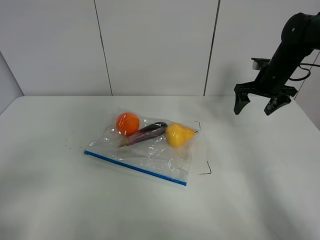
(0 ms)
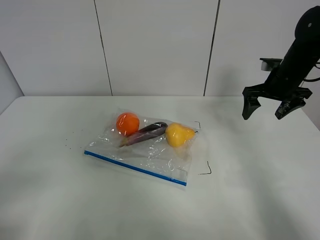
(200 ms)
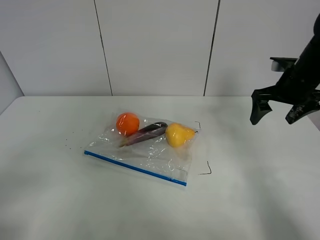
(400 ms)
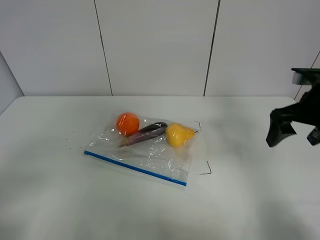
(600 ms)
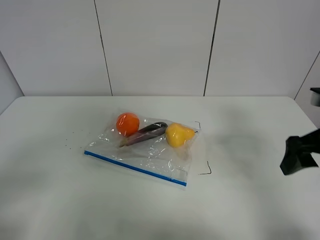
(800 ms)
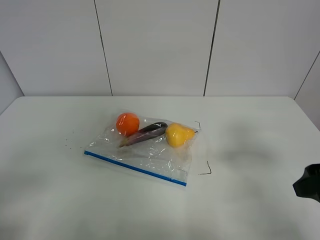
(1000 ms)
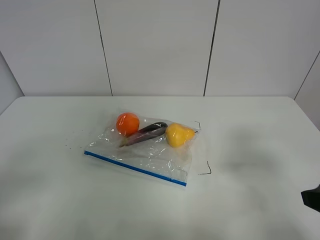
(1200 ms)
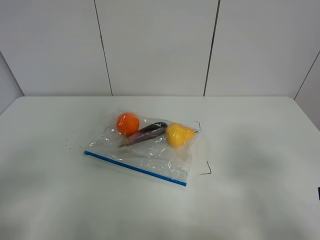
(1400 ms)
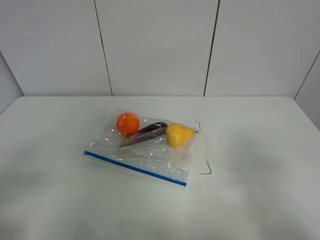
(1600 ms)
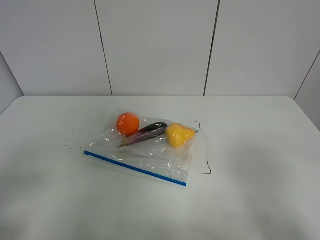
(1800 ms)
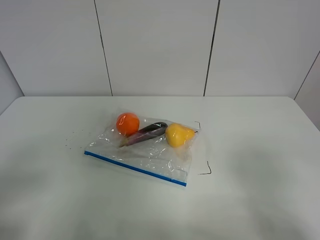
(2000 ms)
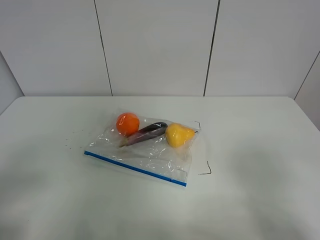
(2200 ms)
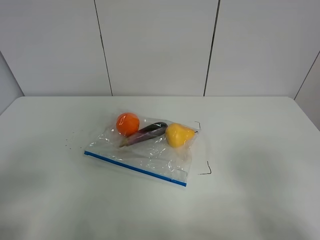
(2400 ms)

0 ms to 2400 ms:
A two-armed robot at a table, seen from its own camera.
0 ms to 1200 ms: The right gripper shifts some 35 cm backward.

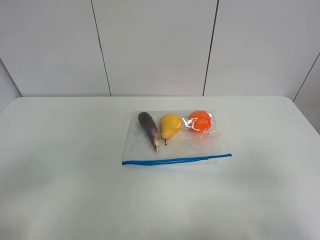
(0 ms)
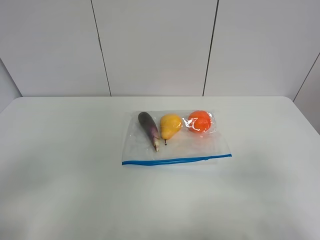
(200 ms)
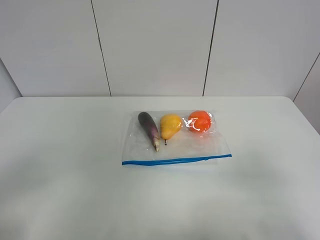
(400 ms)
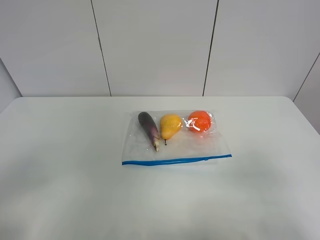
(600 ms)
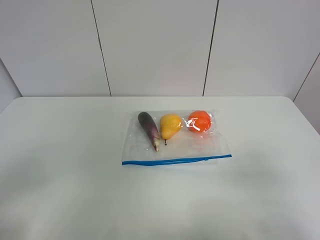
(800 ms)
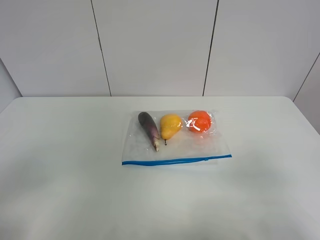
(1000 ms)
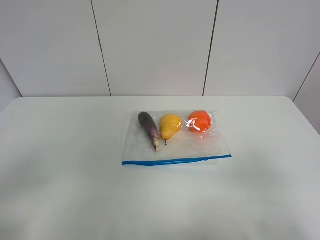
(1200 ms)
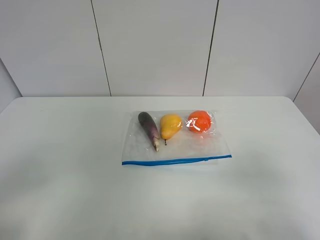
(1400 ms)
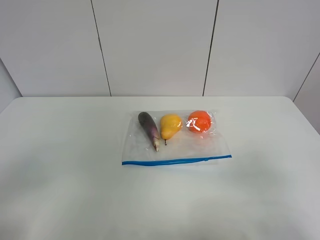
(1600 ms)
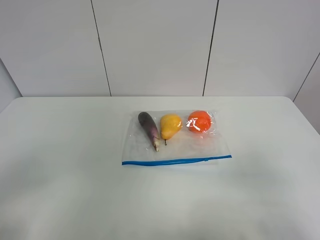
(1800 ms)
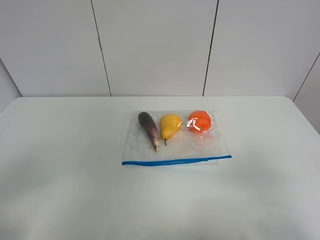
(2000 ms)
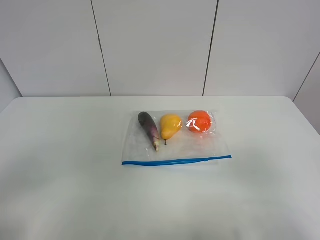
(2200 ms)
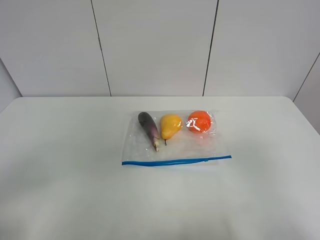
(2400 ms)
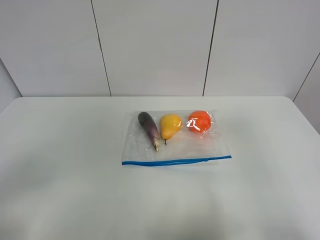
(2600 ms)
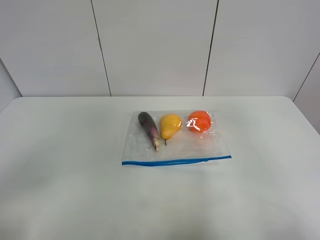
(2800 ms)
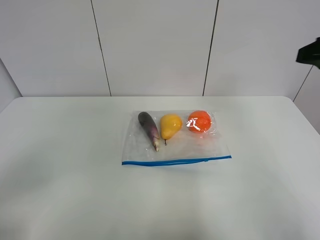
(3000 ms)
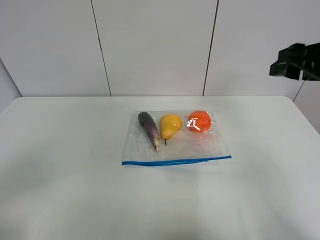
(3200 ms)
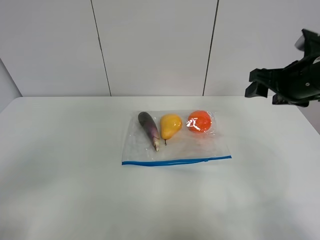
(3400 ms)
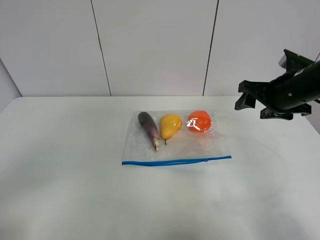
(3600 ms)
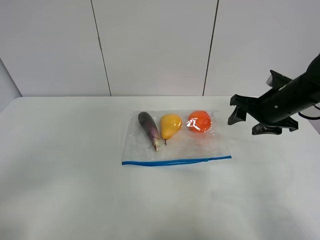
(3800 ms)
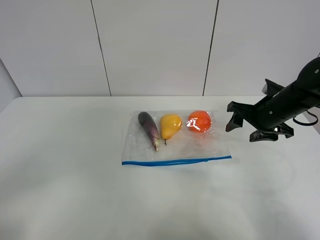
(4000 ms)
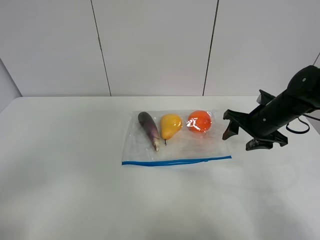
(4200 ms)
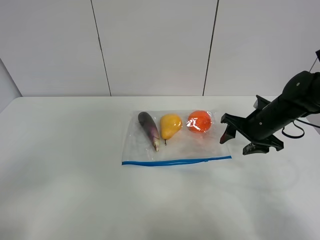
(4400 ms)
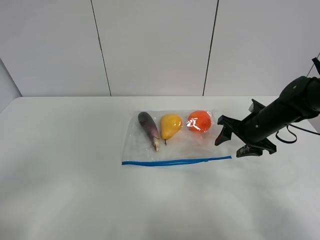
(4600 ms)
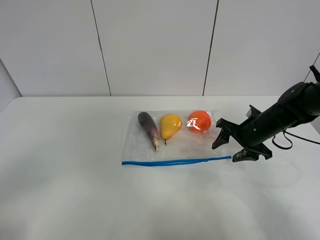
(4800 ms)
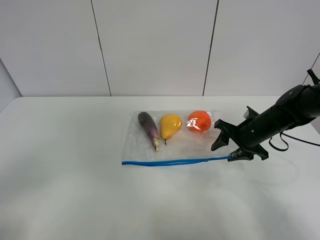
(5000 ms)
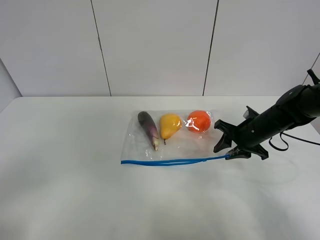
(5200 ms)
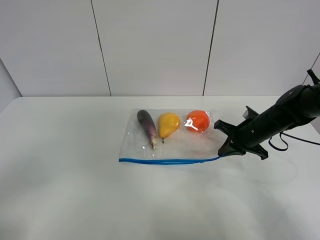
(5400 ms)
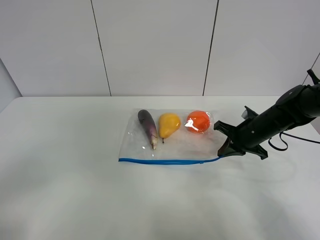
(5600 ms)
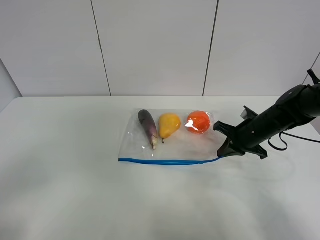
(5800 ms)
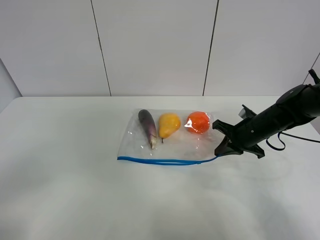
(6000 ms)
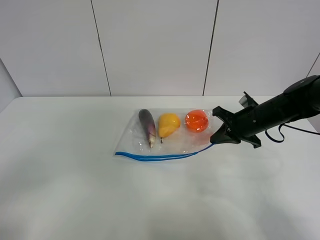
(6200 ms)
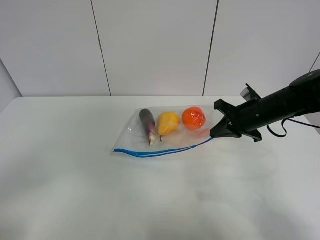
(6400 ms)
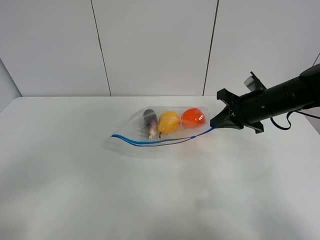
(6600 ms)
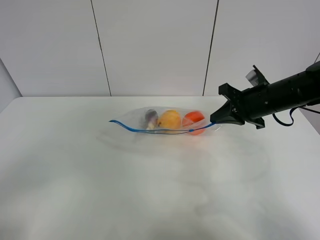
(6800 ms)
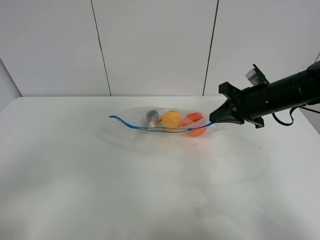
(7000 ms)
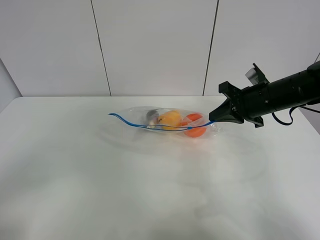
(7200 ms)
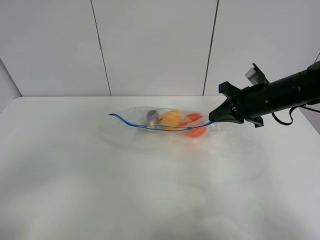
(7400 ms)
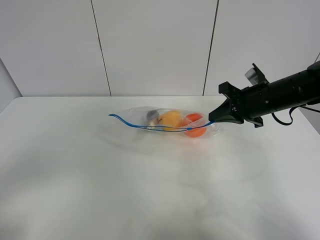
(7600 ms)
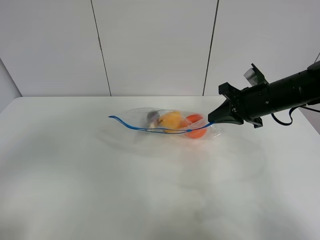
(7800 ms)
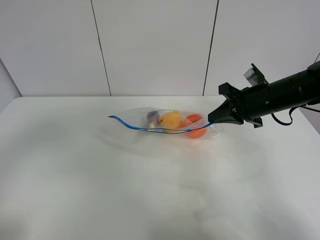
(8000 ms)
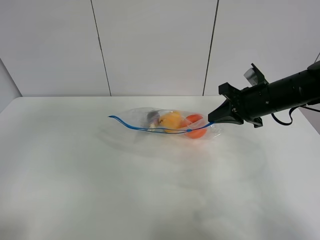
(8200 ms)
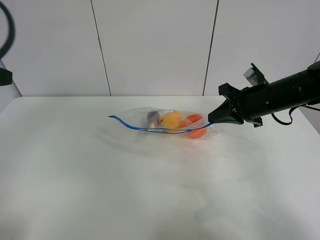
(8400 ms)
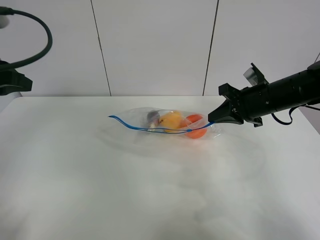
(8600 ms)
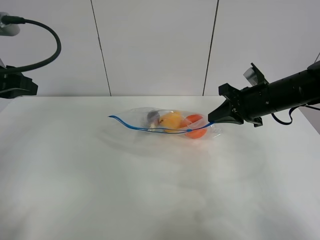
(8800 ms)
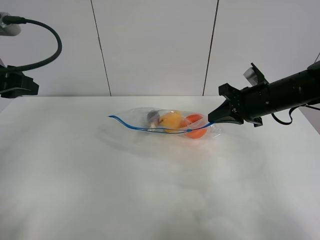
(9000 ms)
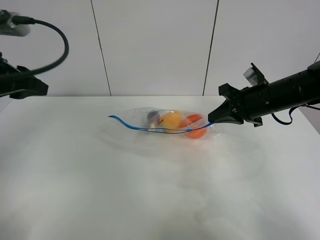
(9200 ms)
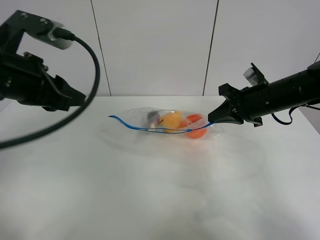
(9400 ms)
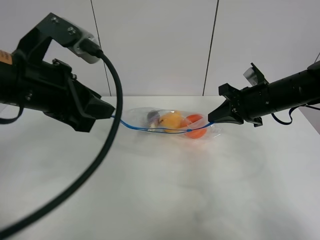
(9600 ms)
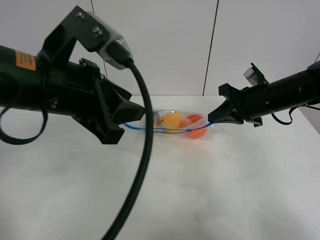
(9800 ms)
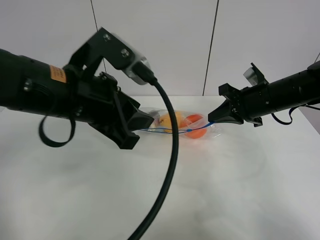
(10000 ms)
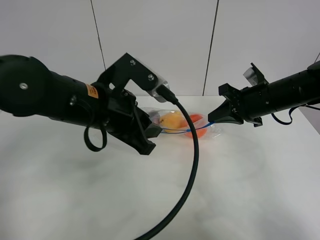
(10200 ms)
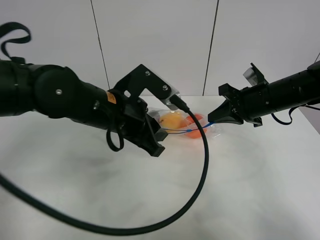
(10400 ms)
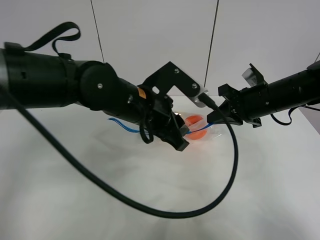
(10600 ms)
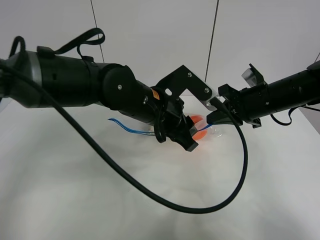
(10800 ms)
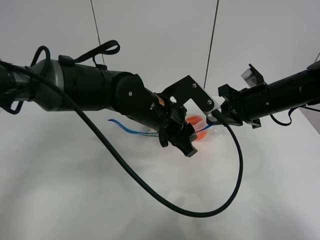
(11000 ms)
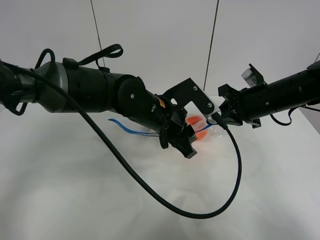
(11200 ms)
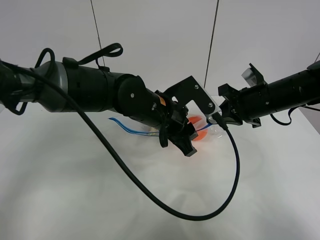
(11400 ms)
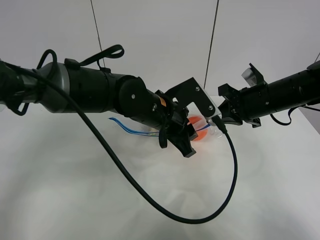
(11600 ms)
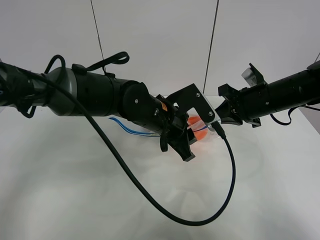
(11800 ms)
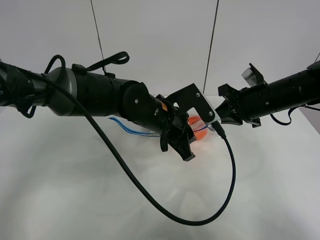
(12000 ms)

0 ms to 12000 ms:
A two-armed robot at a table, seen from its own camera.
Step, 0 ms to 5400 ms: Grasp the fruit bag with right gripper.
Step, 5600 ms to 7000 ms: Lift the fruit bag with your right gripper.
0 ms to 1600 ms: Both grippers stay about where they are.
1600 ms to 3000 ms: The right gripper shifts roughly 20 cm forward and upward.
3000 ms to 4400 ms: The right gripper is displaced downward and forward by some 25 cm.
4400 ms to 6000 ms: The right gripper closes its fingers.
6000 ms to 7600 ms: The right gripper is displaced upward by roughly 10 cm.
7600 ms to 9000 ms: The left gripper shifts roughly 25 cm forward.
9000 ms to 10400 ms: The left gripper is displaced to the right by about 25 cm.
10400 ms to 12000 ms: The left gripper is displaced to the right by about 5 cm.

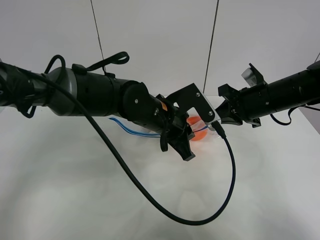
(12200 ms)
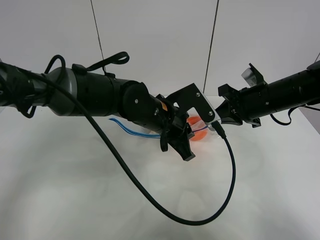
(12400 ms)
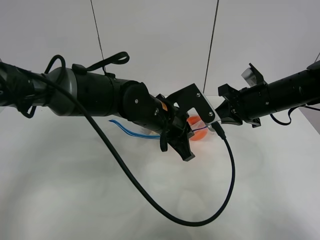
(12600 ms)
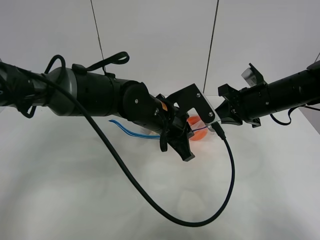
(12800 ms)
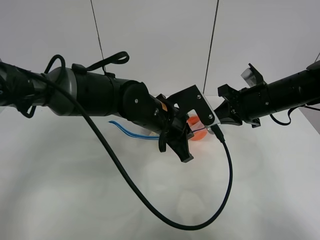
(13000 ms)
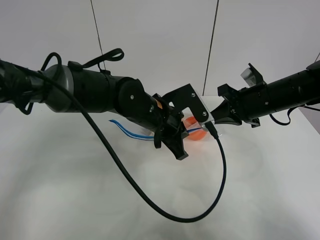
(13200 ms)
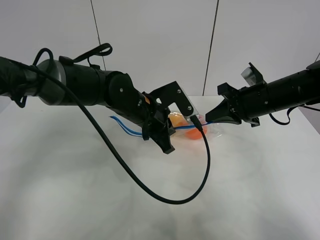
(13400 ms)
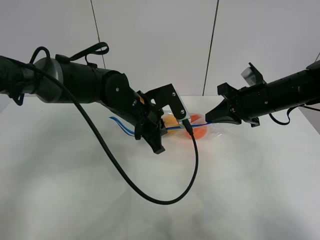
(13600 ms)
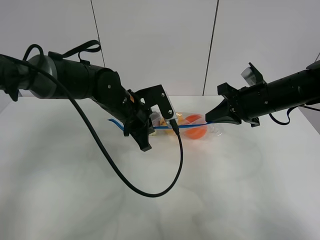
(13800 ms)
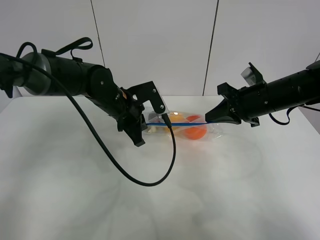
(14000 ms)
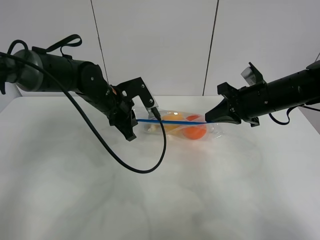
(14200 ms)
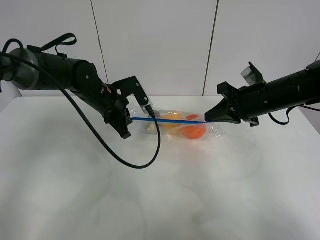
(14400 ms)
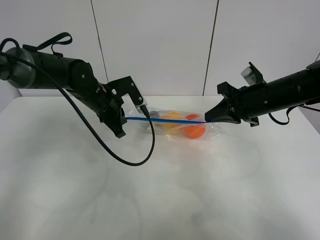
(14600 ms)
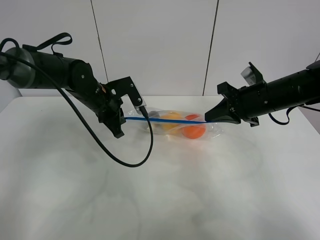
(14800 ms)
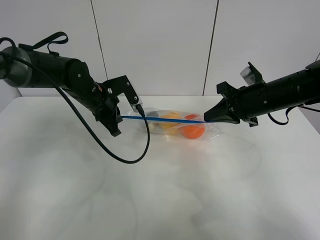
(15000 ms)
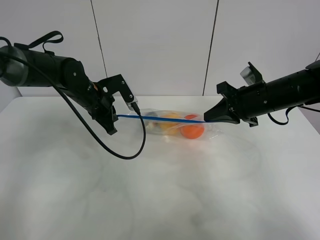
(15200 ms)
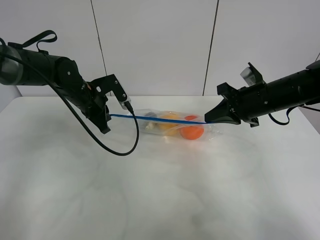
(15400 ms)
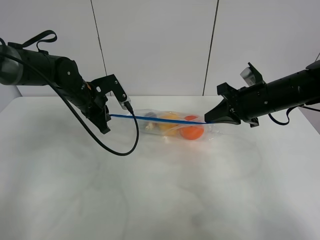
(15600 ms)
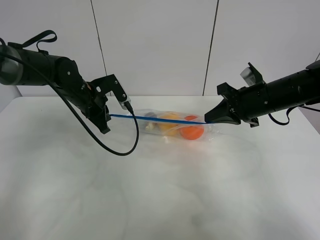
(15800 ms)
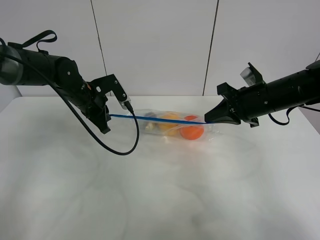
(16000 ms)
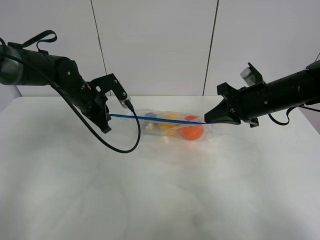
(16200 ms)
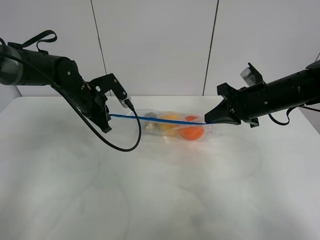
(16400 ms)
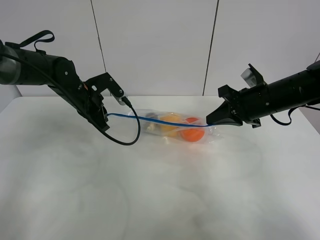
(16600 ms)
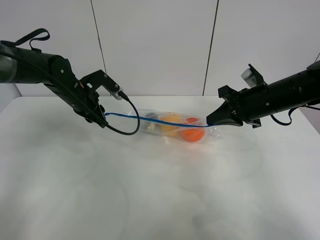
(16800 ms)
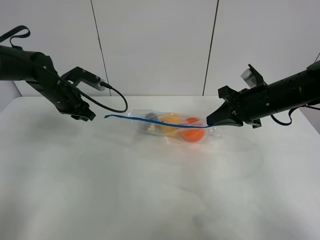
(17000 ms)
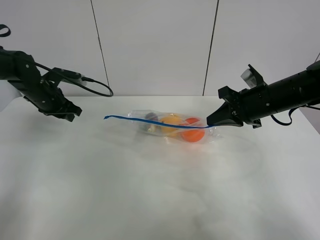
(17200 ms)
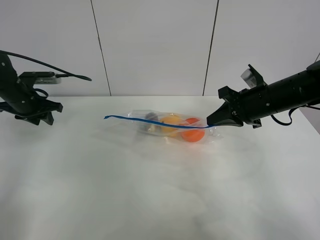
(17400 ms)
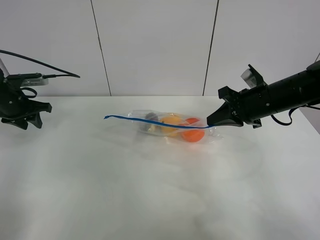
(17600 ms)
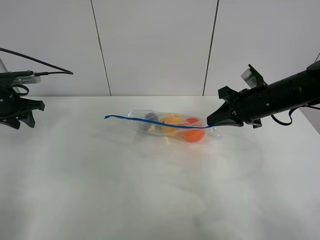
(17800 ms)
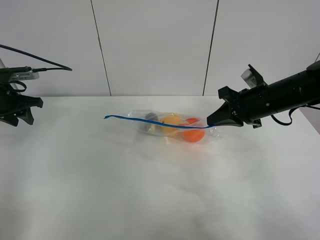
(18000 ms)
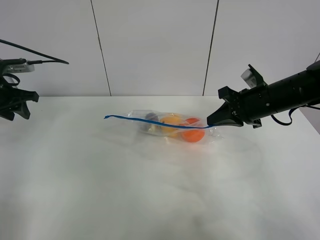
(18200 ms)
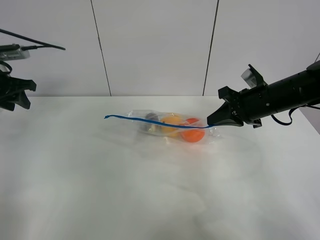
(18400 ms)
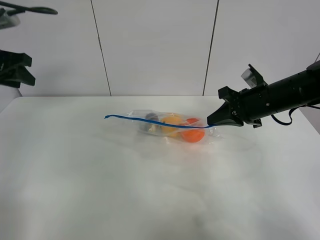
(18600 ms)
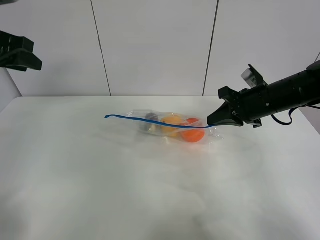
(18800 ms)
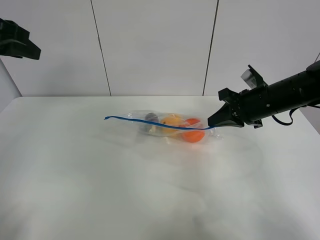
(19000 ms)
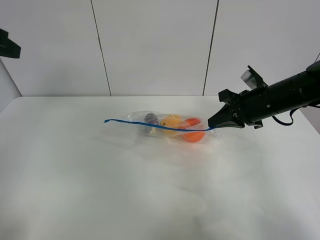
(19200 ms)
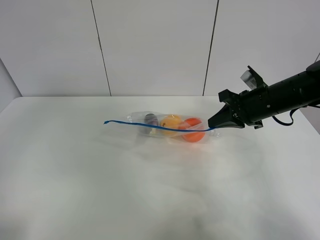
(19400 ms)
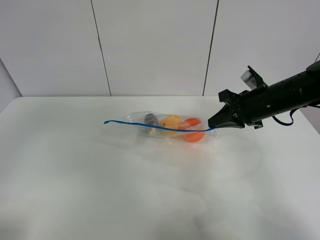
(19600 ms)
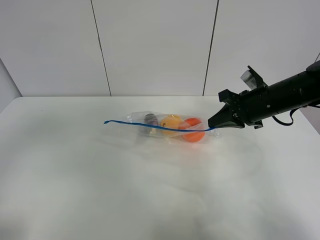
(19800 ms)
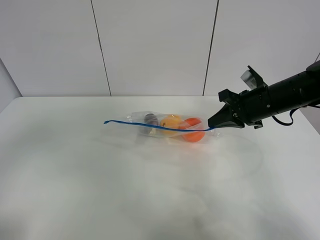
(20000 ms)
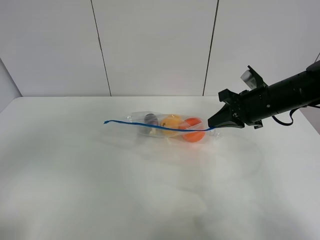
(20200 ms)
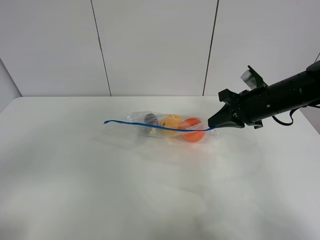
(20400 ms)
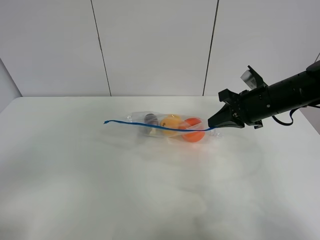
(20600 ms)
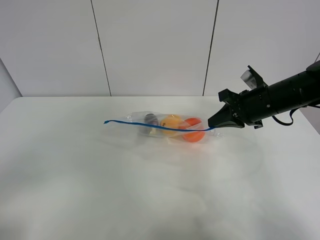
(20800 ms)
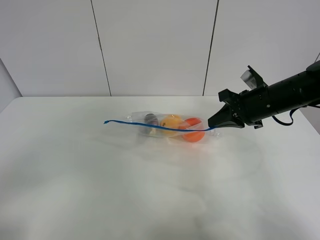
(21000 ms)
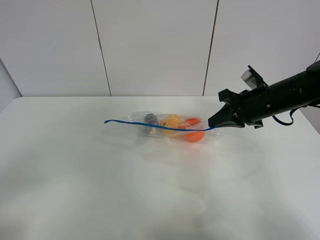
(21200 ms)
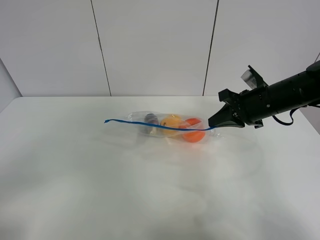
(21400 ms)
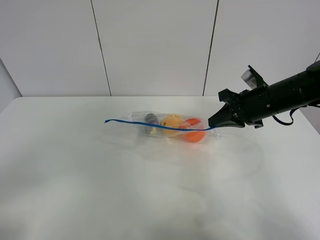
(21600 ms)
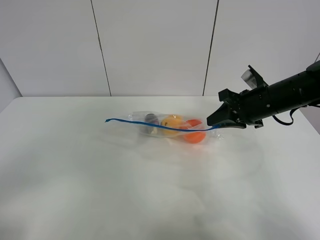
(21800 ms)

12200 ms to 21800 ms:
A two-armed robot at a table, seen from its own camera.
Step, 12200 ms to 16800 ms: Pull the fruit bag with left gripper.
12200 ms to 13800 ms: The left gripper shifts roughly 10 cm to the left.
13800 ms to 15400 ms: The left gripper is displaced to the left by roughly 10 cm.
15400 ms to 17000 ms: The left gripper shifts some 5 cm to the left, and opens its fingers.
17000 ms to 18600 ms: The left gripper is displaced upward, to the left and backward by about 20 cm.
18600 ms to 20200 ms: The left gripper moves backward, roughly 35 cm.
20200 ms to 21800 ms: The right gripper opens. The left gripper heads downward, covering roughly 5 cm.
